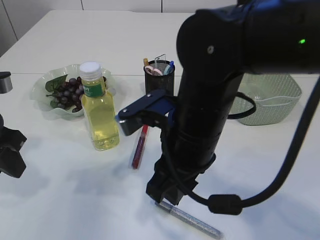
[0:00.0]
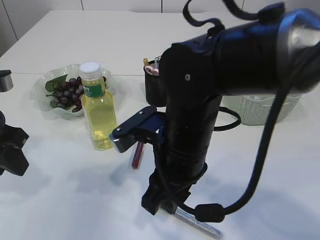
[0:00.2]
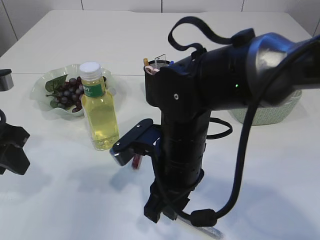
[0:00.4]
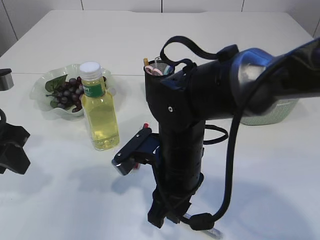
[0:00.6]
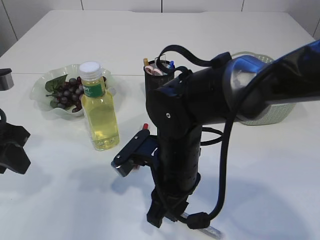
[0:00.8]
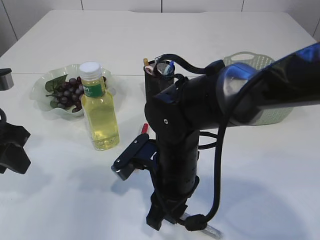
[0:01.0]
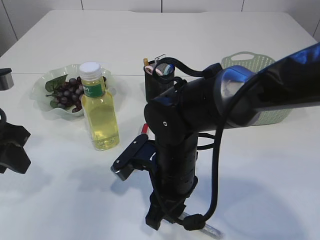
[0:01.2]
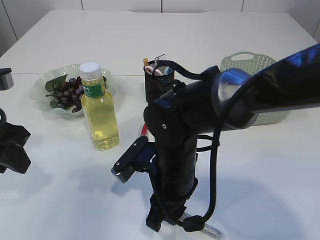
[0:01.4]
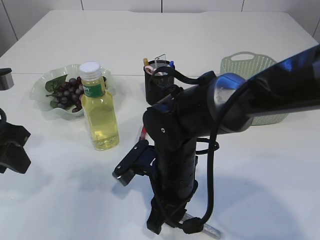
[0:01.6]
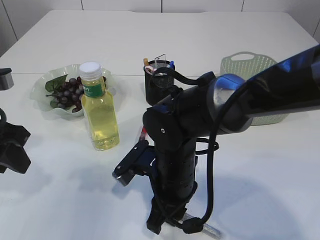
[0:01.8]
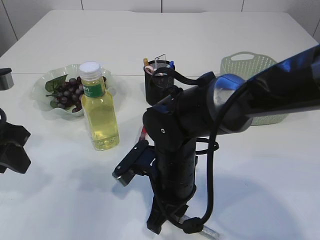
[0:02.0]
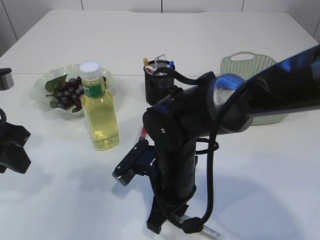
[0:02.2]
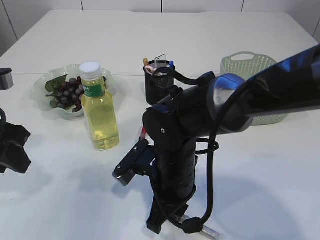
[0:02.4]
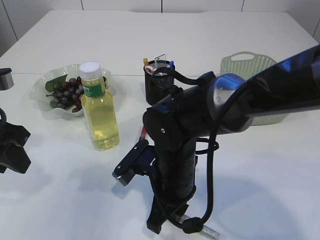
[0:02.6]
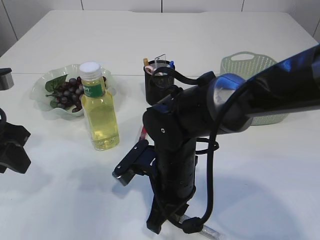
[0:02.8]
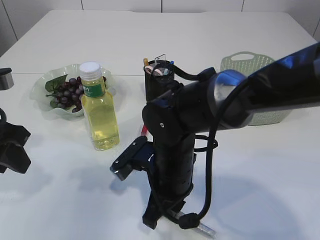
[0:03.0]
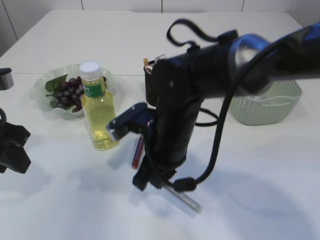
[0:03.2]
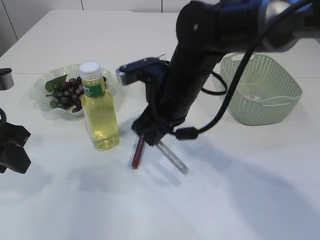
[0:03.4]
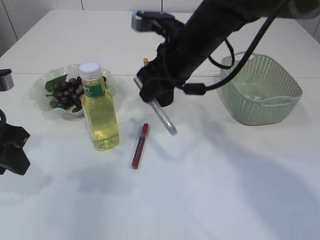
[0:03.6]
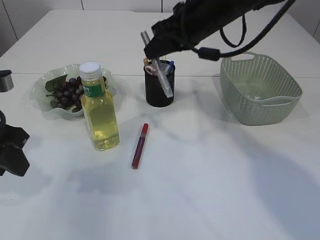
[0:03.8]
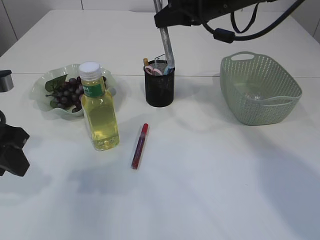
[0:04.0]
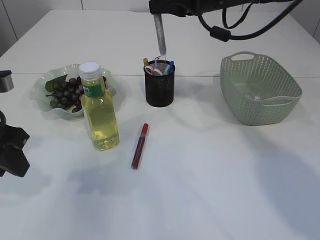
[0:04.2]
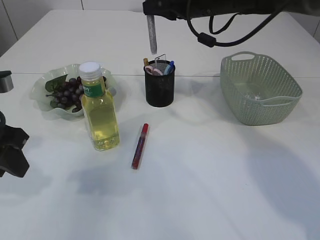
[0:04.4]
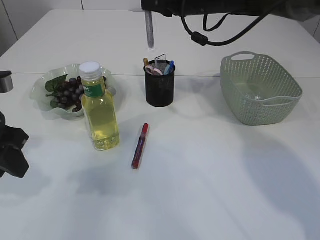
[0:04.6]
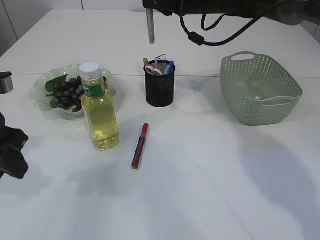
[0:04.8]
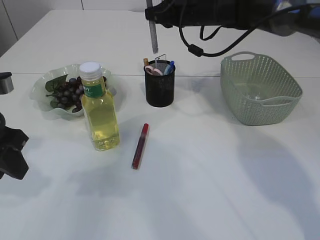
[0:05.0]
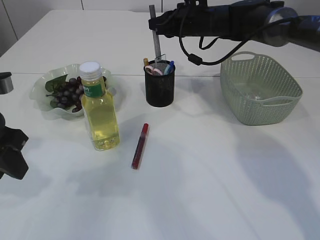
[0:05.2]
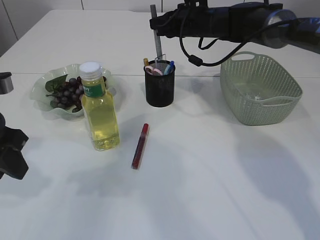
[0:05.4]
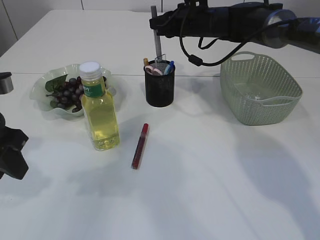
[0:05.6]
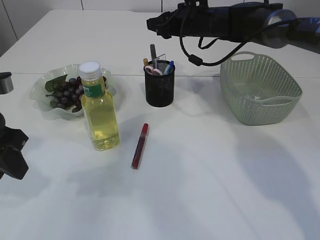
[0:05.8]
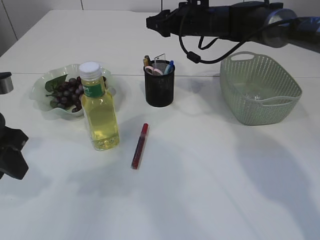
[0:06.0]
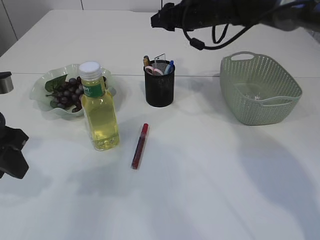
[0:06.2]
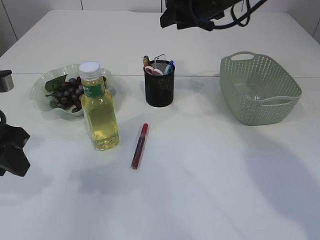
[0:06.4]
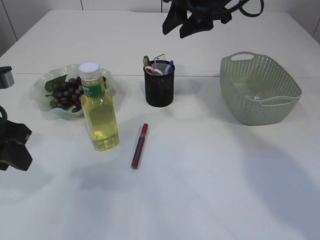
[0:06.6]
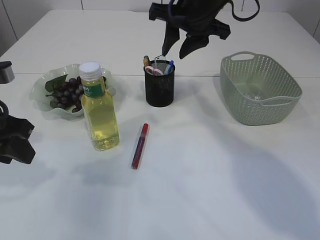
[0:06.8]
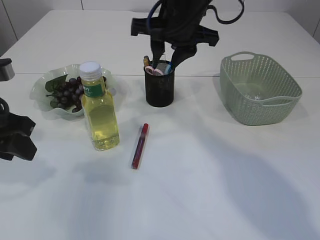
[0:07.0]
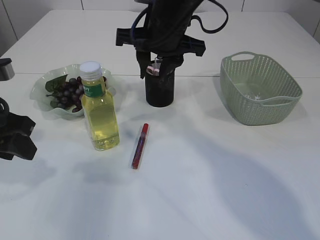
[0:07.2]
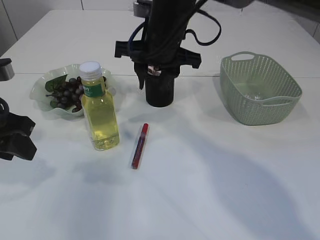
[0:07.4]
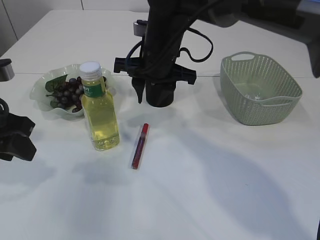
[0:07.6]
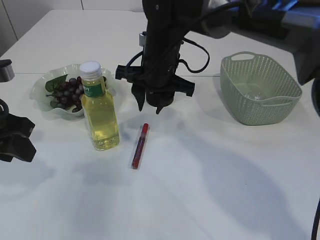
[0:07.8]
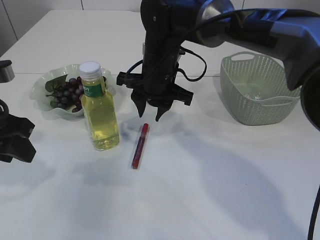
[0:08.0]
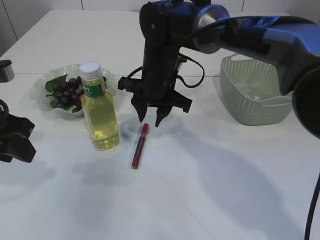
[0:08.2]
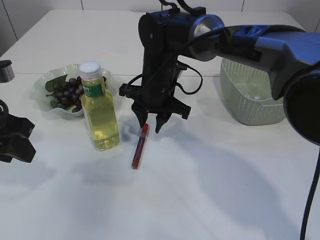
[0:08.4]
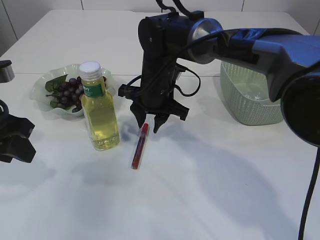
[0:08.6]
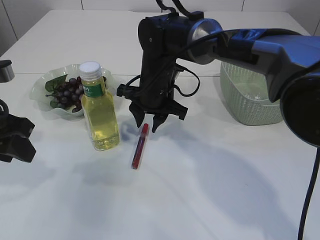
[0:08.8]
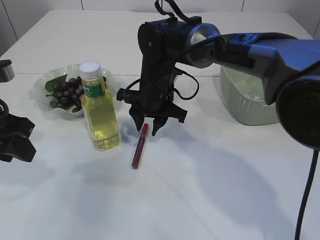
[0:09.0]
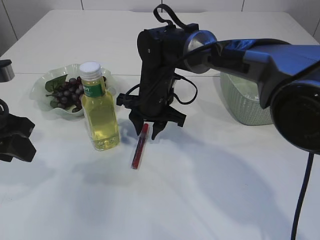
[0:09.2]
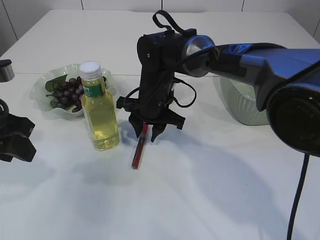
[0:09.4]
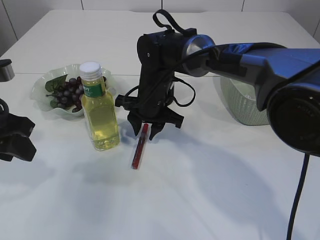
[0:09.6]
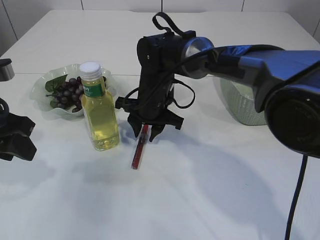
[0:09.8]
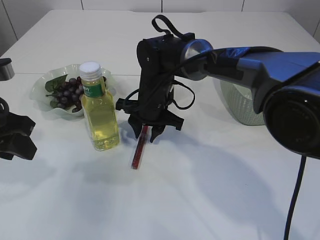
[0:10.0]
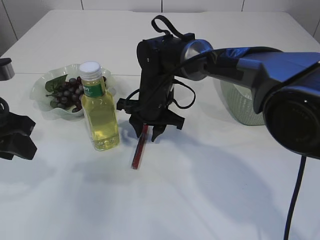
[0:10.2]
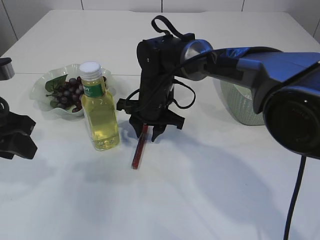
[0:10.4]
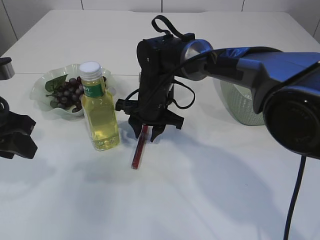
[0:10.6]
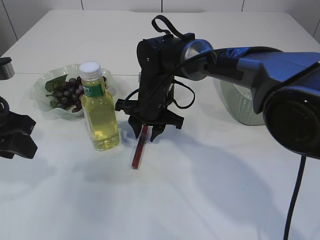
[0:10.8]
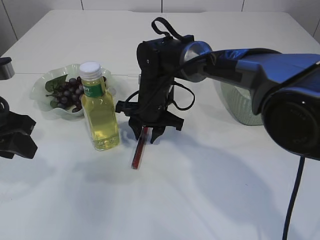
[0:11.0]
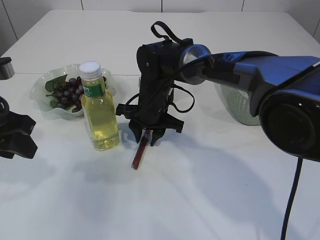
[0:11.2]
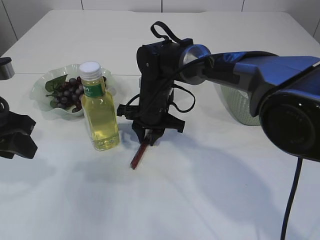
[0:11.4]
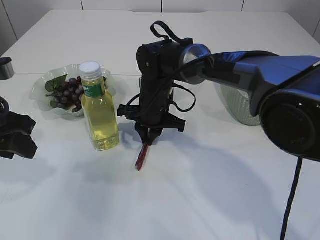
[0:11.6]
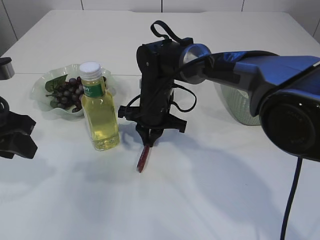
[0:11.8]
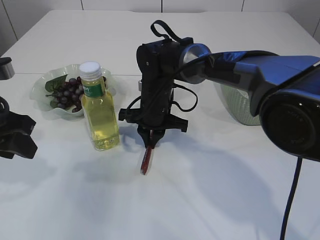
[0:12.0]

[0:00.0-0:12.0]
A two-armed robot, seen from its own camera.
Step, 0:00.0 to 0:03.2: pick up the silver glue.
Step, 0:03.4 to 0:06.4: place the silver glue into the pen holder.
0:00.0 to 0:01.6: The right gripper is displaced downward by roughly 10 cm.
0:01.6 to 0:03.0: Neither gripper changes place.
0:03.0 to 0:04.4: The right gripper is displaced forward, upward and to the right by about 30 cm.
0:04.4 to 0:06.0: The right gripper is displaced forward and downward by some 10 cm, and opens.
0:06.0 to 0:07.6: The right gripper travels backward and to the left by approximately 15 cm.
0:07.6 to 0:09.0: The right gripper is displaced downward by approximately 10 cm.
0:09.0 to 0:10.4: The grippers move only a little.
0:10.4 to 0:12.0: The right gripper closes.

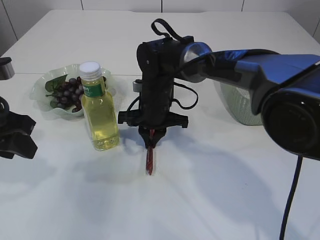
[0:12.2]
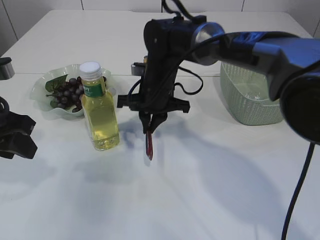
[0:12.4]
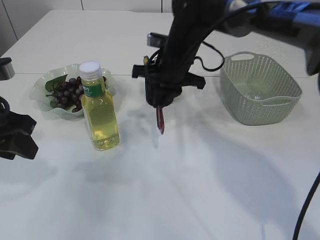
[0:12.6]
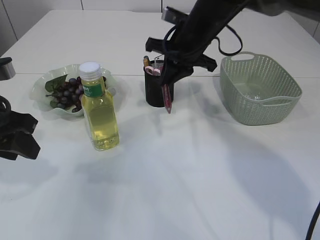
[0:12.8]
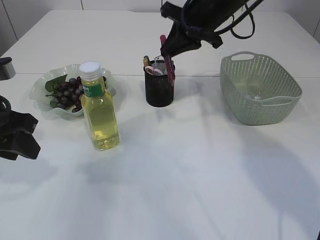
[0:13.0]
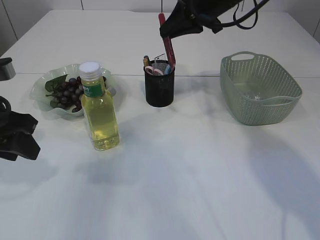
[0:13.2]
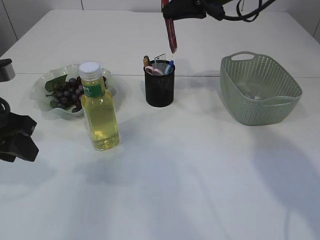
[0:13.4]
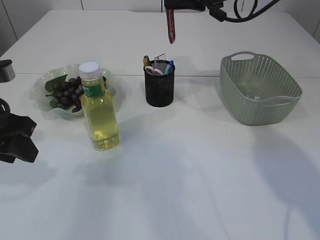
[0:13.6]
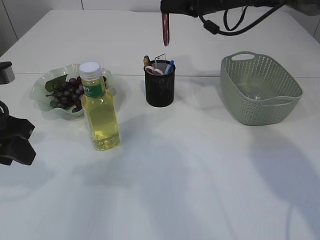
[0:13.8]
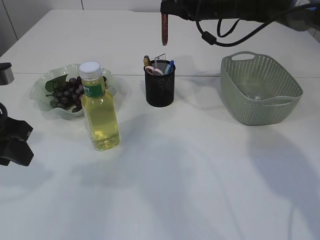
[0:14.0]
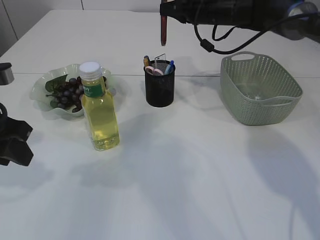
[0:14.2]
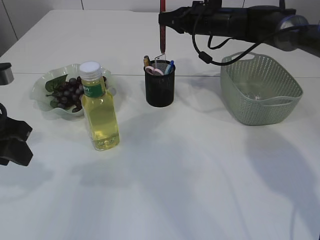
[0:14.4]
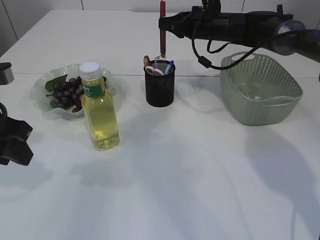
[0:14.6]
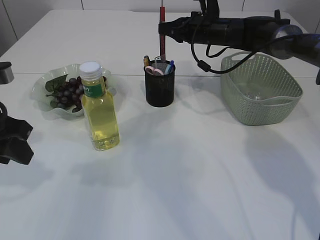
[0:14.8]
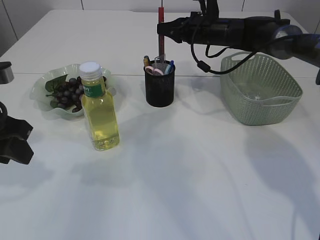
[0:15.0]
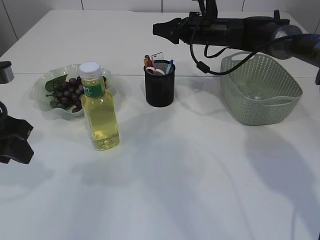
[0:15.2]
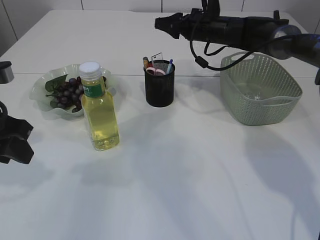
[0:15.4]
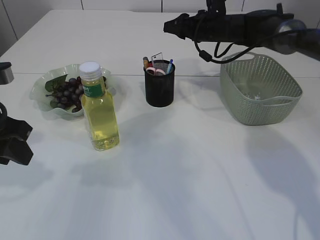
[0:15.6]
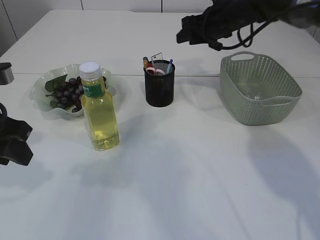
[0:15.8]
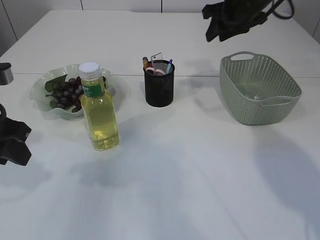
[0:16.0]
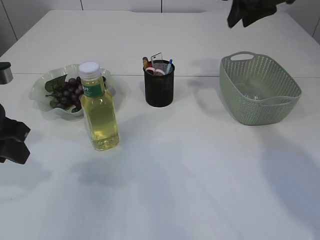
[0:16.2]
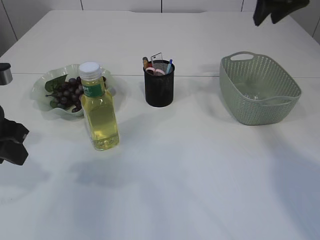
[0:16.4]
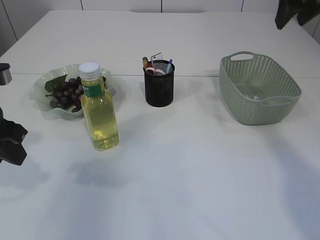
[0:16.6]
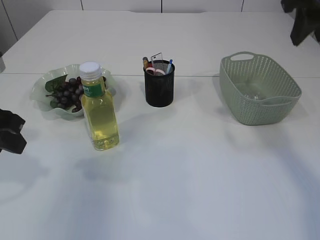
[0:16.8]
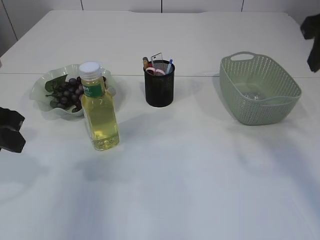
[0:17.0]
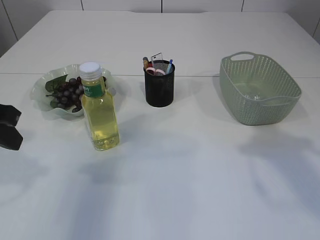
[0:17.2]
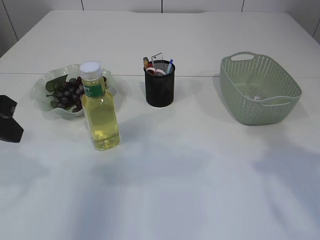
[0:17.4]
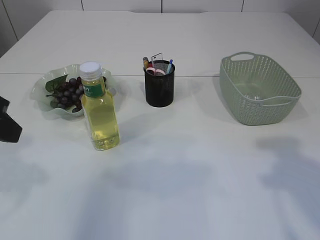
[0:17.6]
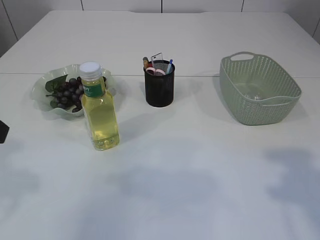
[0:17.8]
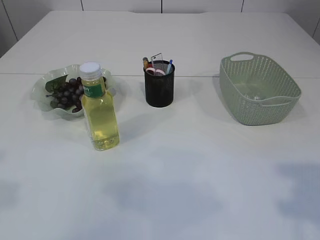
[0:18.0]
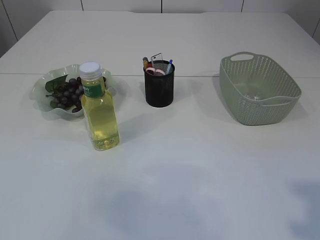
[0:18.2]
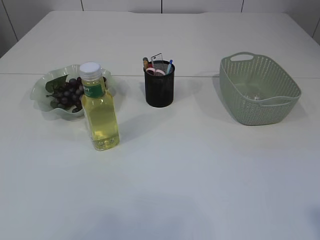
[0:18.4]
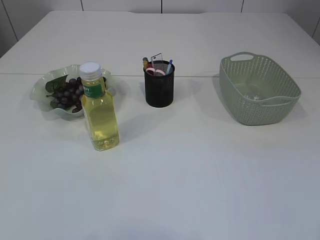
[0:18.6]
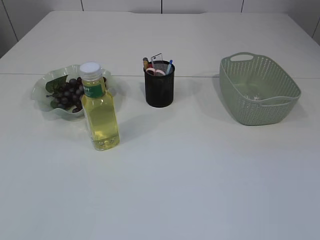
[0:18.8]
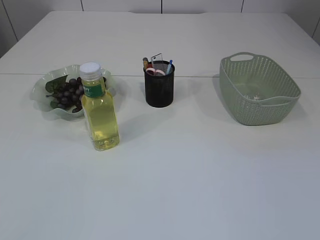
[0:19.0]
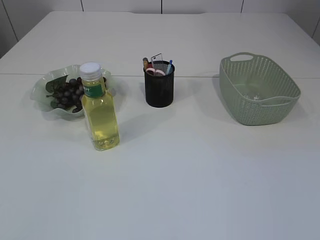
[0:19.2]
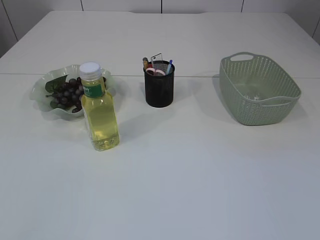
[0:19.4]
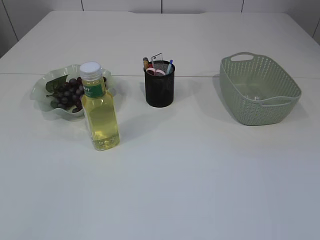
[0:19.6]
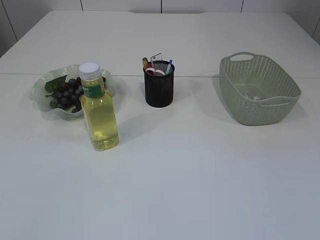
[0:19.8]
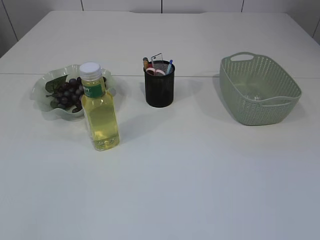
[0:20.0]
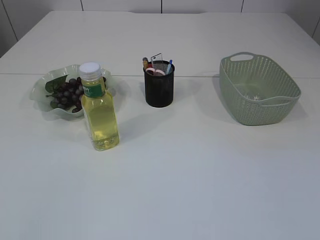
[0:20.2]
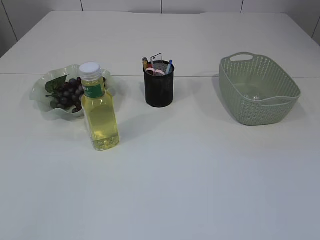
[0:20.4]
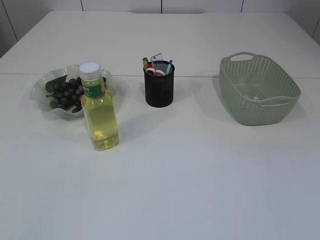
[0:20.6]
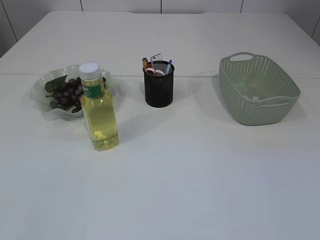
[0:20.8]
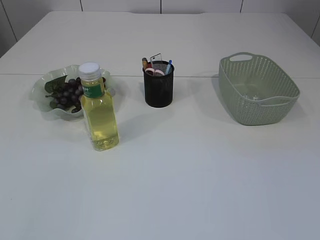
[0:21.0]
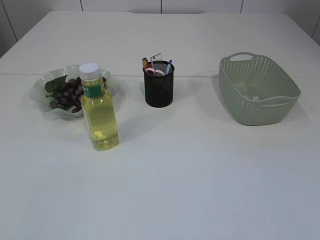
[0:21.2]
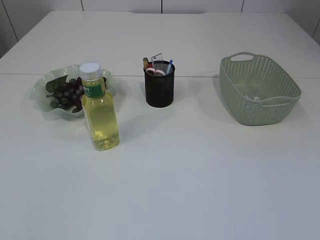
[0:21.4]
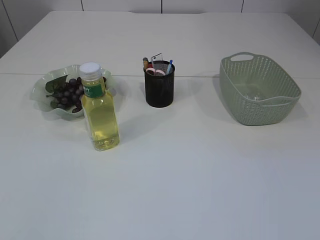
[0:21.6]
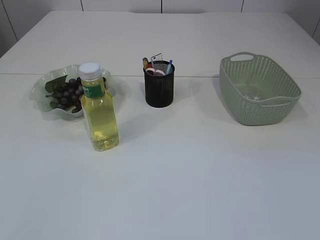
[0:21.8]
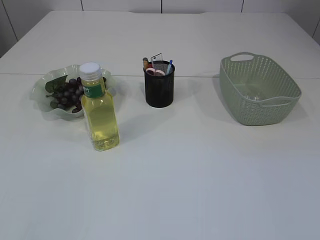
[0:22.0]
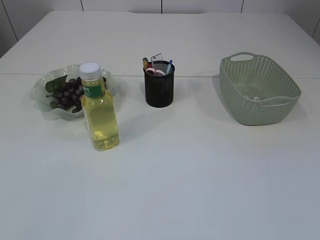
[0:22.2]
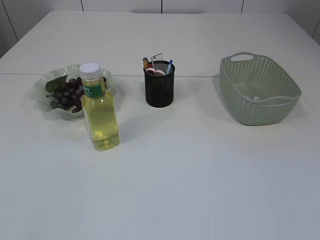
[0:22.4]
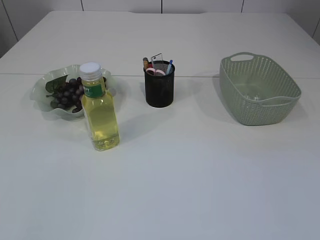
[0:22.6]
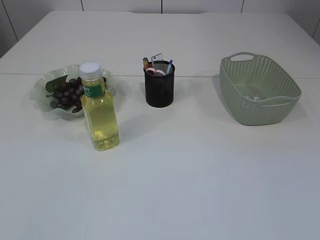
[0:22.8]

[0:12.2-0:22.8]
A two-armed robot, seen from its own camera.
Step, 0:12.2 to 0:15.6: place the red glue into the pen holder.
0:12.2 to 0:13.8: The right gripper moves upward, to the right and forward, approximately 25 cm.
0:13.8 to 0:15.2: The right gripper is displaced downward by some 10 cm, and opens up.
0:15.2 to 0:16.8: The right gripper travels backward, upward and to the right by about 30 cm.
0:16.8 to 0:18.2: The left gripper heads backward and upward, covering about 15 cm, while the right gripper is displaced backward by about 25 cm.
0:18.2 to 0:19.8: The right gripper goes about 10 cm backward and downward, while the left gripper heads backward, downward and to the left, covering roughly 15 cm.
0:21.2 to 0:22.8: Both grippers stay put.
